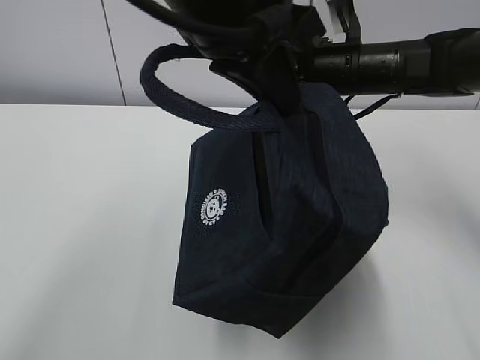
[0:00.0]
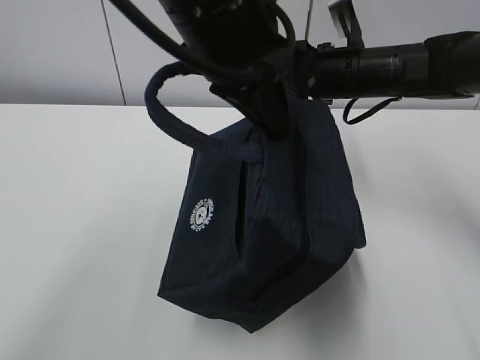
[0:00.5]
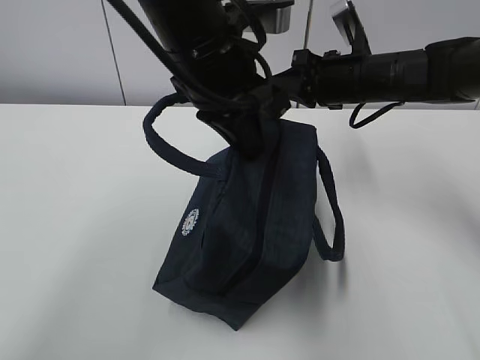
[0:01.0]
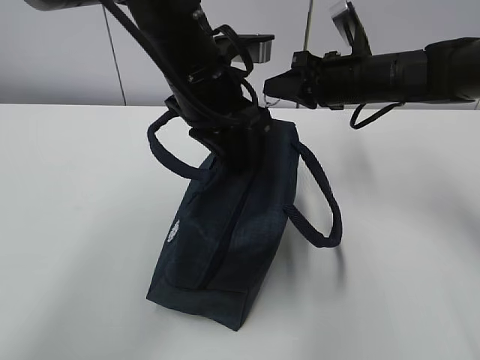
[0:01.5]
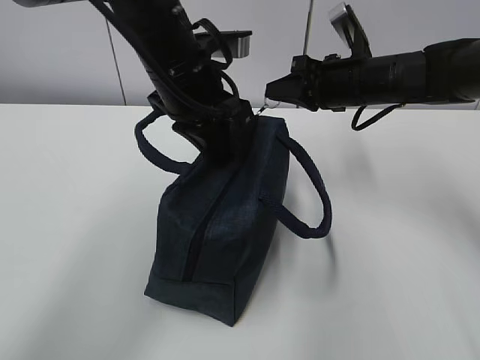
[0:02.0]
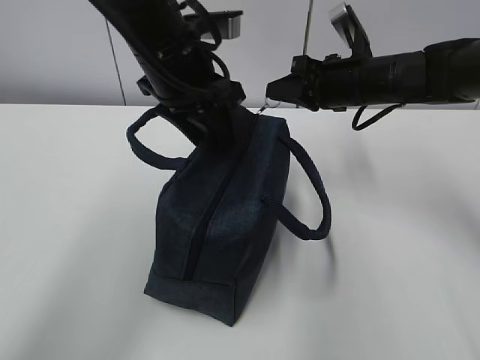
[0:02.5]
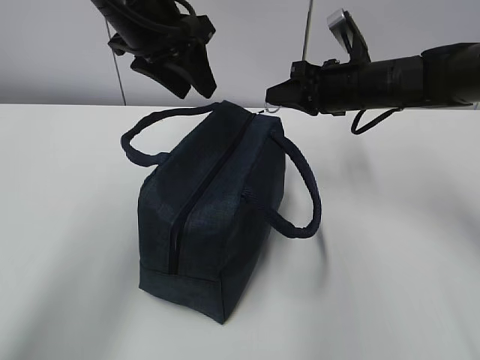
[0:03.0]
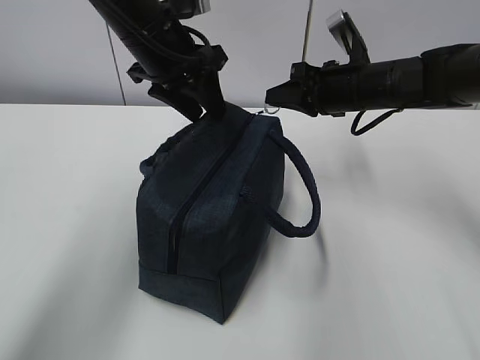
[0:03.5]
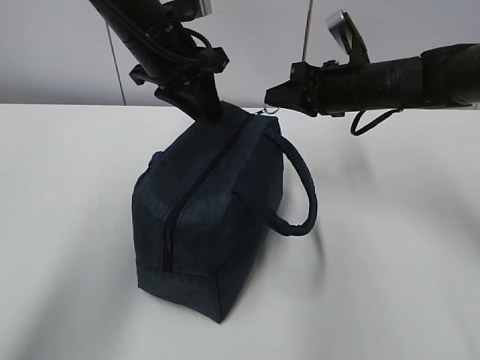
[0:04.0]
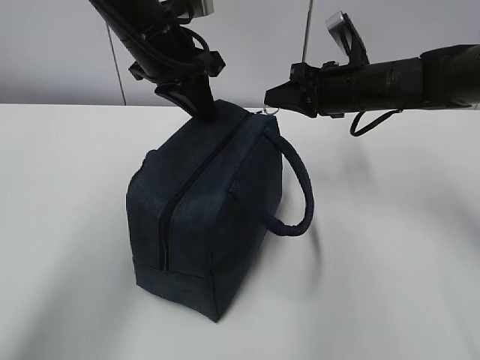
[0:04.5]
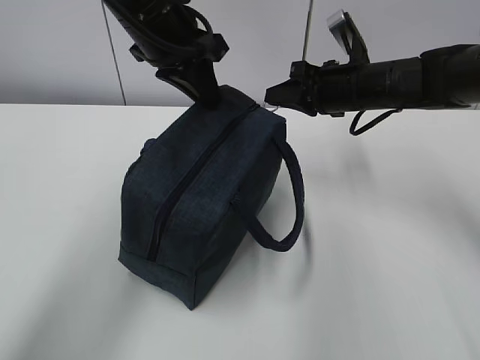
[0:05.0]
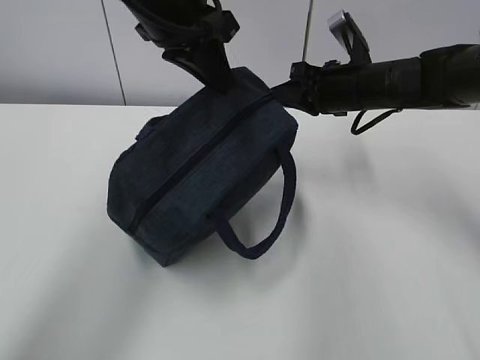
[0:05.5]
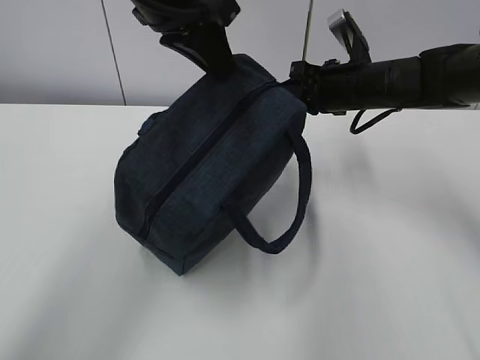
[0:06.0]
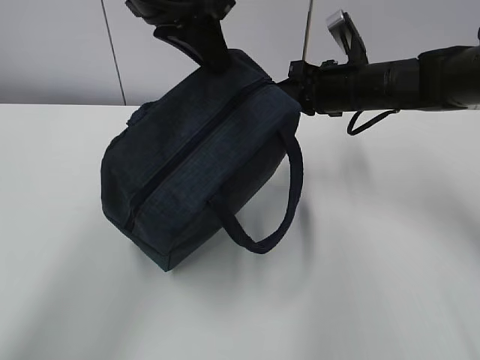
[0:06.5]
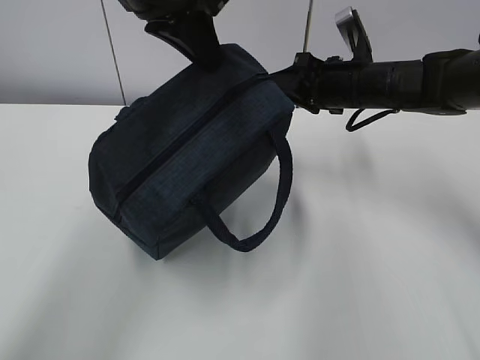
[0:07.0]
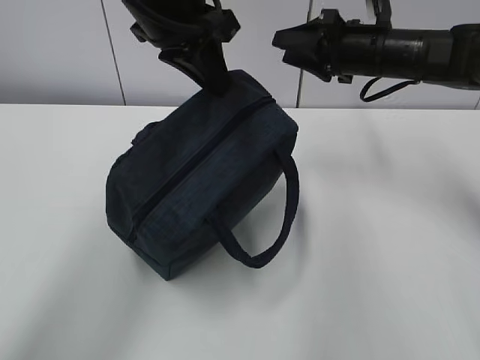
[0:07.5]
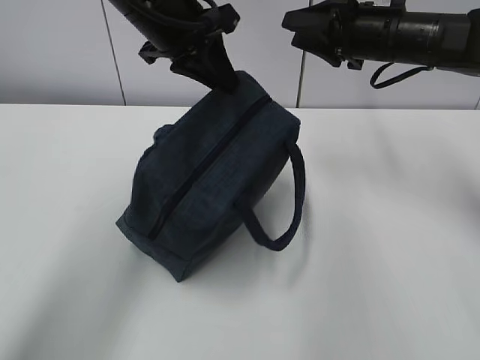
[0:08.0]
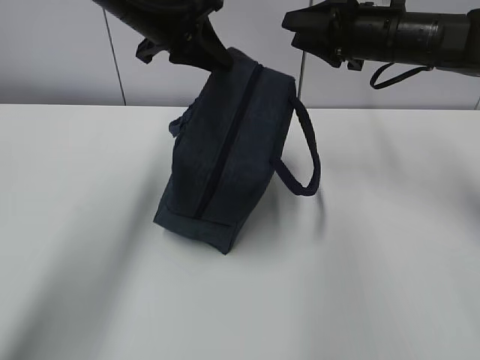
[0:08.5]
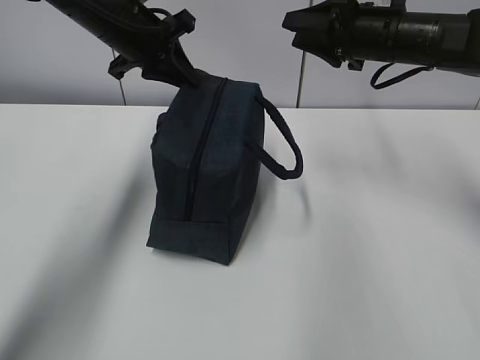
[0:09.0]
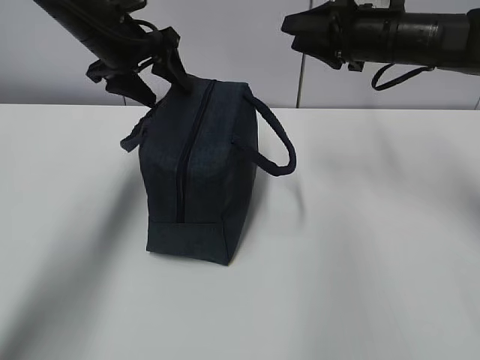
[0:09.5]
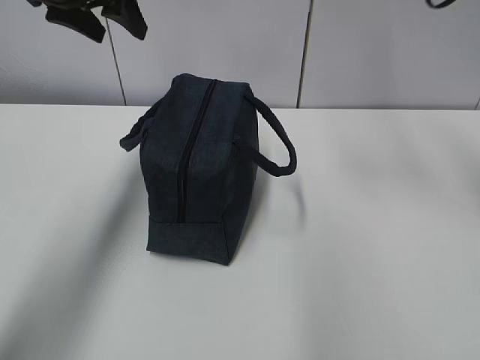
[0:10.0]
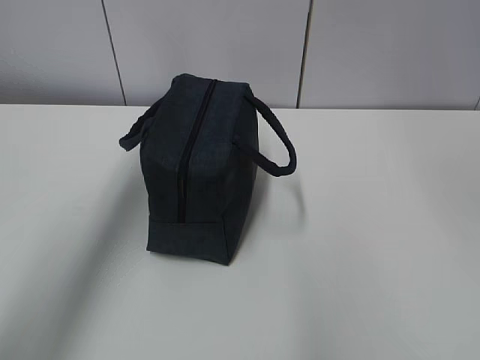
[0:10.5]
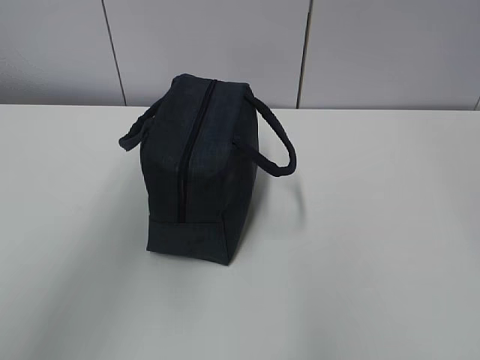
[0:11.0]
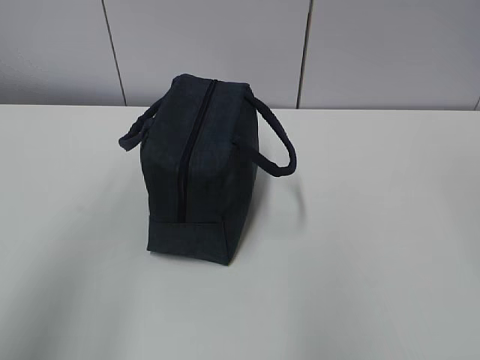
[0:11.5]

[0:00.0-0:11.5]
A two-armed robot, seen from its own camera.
0:00.0 to 0:02.0: The left gripper moves downward and forward, approximately 15 cm.
0:02.0 to 0:04.0: The left gripper moves forward, approximately 5 cm.
0:04.0 to 0:06.0: The left gripper travels upward and backward by approximately 10 cm.
0:06.0 to 0:07.5: The right gripper opens up.
0:07.5 to 0:09.5: The left gripper shifts approximately 15 cm forward, to the left and downward, and opens its fingers.
0:09.5 to 0:11.5: The grippers both shift backward and upward by approximately 40 cm.

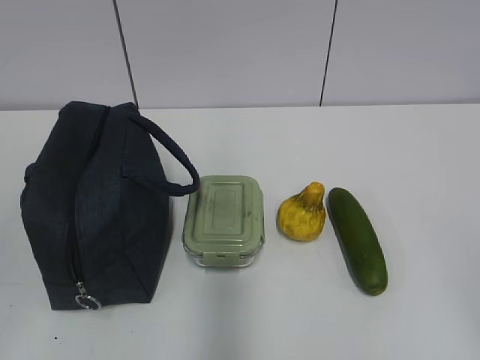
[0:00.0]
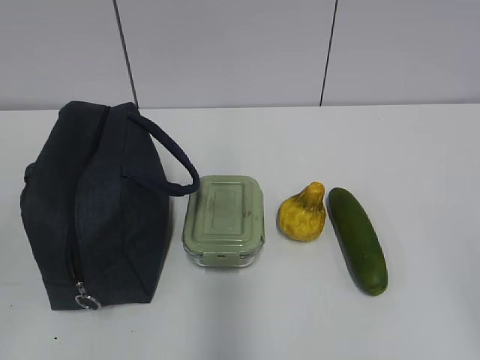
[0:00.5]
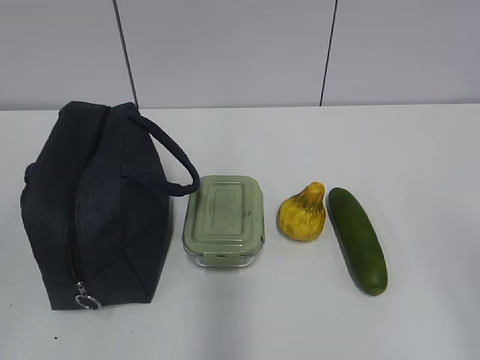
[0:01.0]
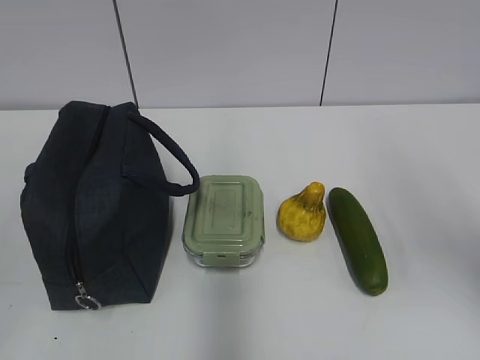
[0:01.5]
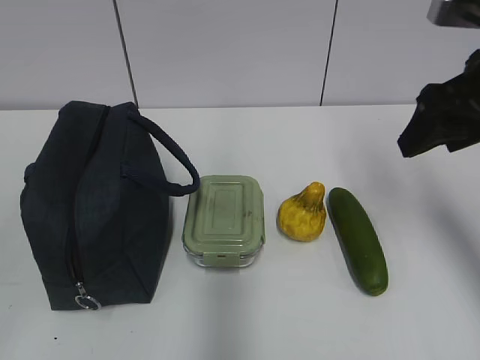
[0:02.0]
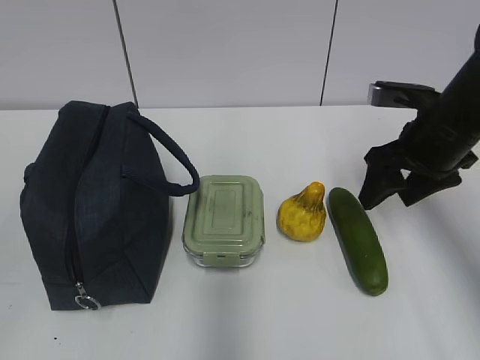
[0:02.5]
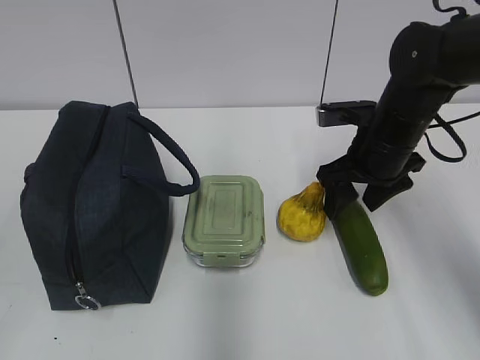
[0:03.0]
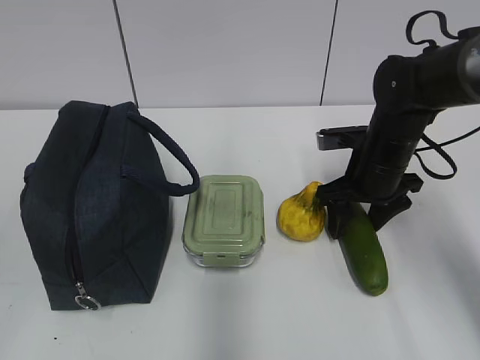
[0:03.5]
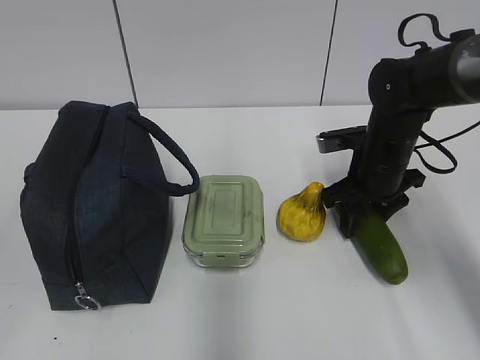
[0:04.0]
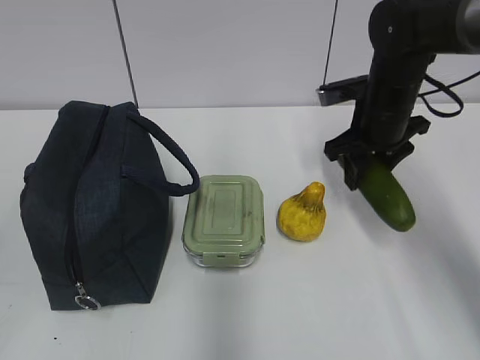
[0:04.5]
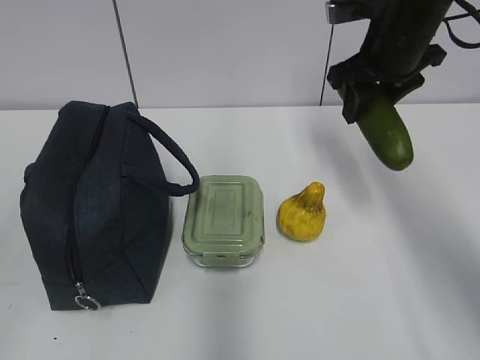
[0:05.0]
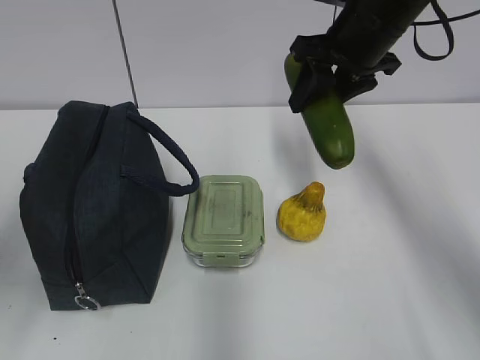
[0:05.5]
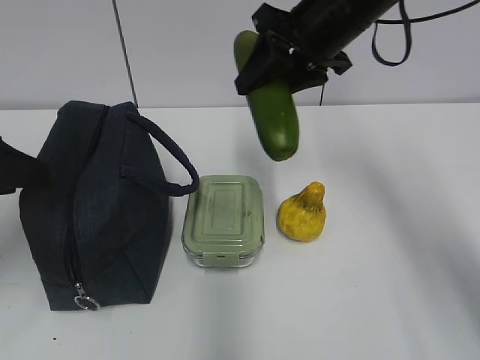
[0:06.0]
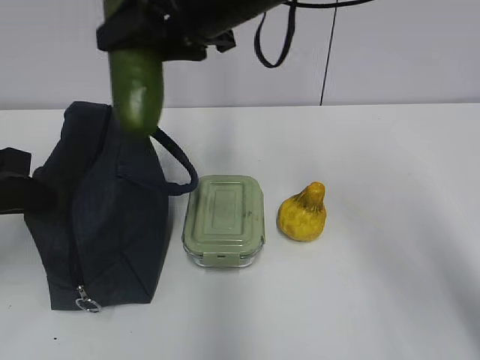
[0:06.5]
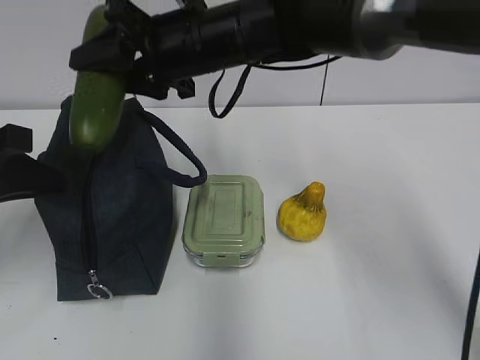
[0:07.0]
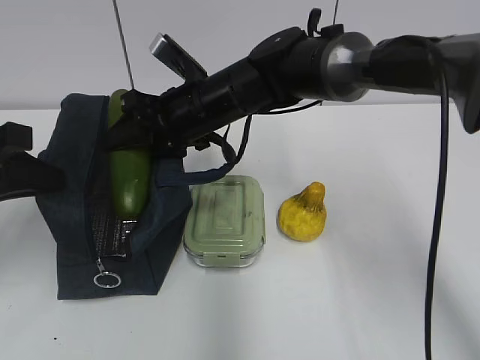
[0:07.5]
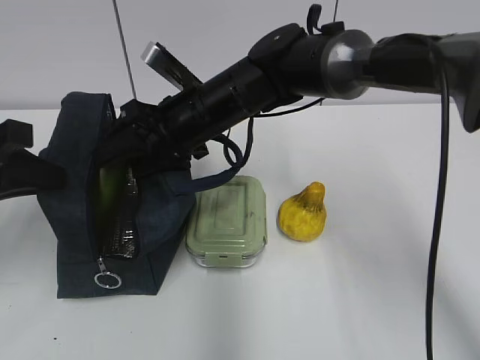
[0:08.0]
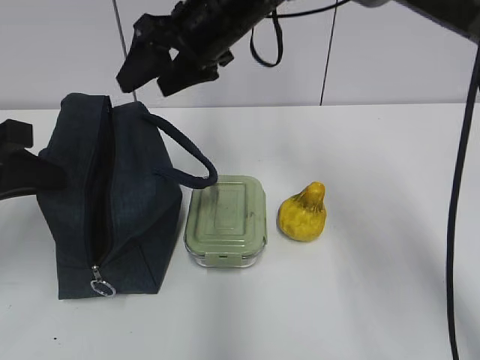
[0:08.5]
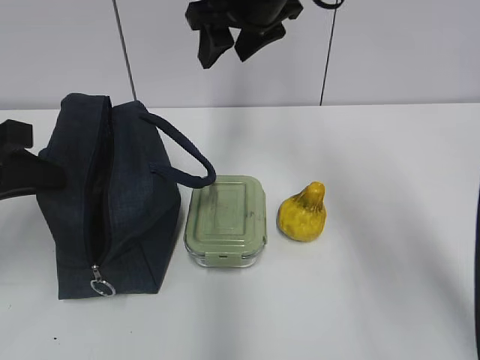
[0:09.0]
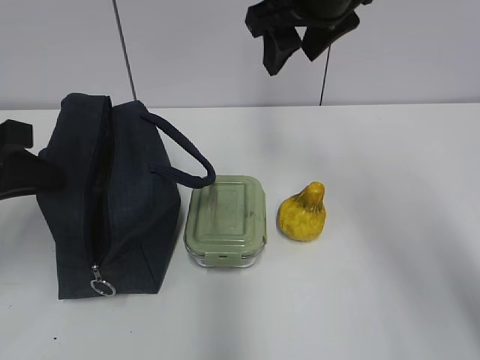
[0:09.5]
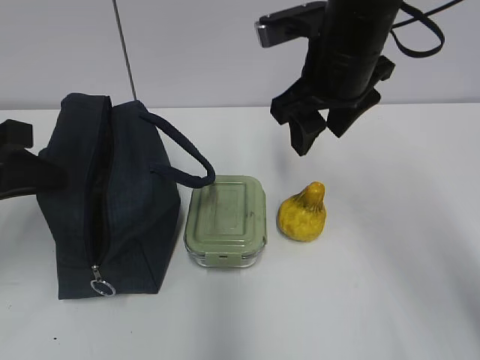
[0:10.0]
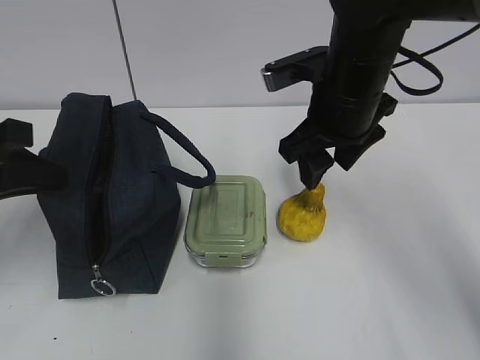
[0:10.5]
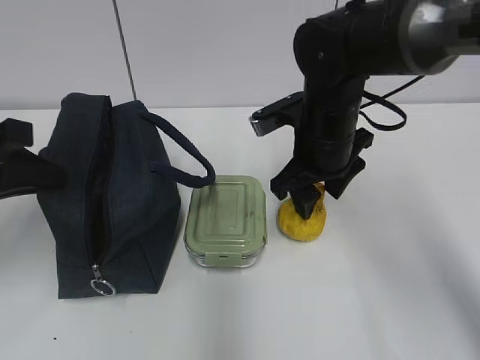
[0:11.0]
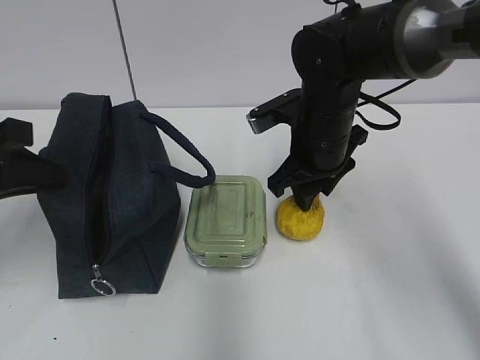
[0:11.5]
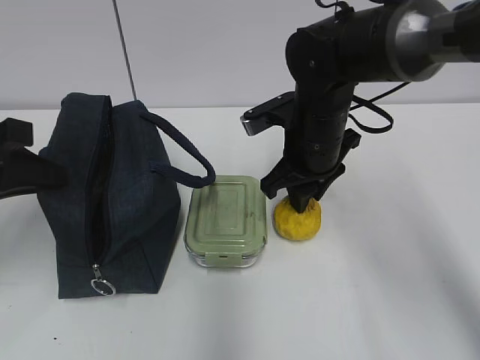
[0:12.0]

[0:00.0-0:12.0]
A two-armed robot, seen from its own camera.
Step, 0:00.0 to 0:03.5: Grab the cucumber with your right hand.
Step, 0:04.0 to 0:07.0: Grab the lunch bag with your left hand.
Step, 0:08.0 to 0:08.5: Place it into the bag with your right hand.
Step, 0:09.0 to 0:12.0: Grab the pear with your right hand.
0:02.0 to 0:04.0: The right gripper shifts about 20 cm downward and forward.
0:04.0 to 0:06.0: The left gripper goes roughly 20 cm forward. Meanwhile the right gripper heads upward and to the left, covering about 20 cm.
0:06.0 to 0:08.0: The left gripper closes up, while the right gripper is displaced to the left and downward by roughly 15 cm.
0:08.0 to 0:10.0: The right gripper goes some 15 cm to the right and upward.
0:10.0 to 0:12.0: The right gripper moves downward, some 10 cm, and closes.

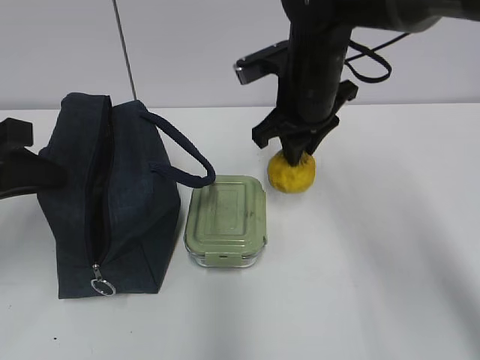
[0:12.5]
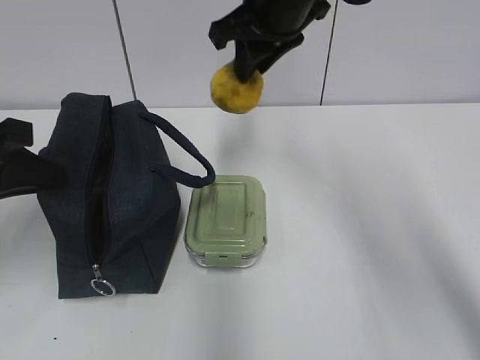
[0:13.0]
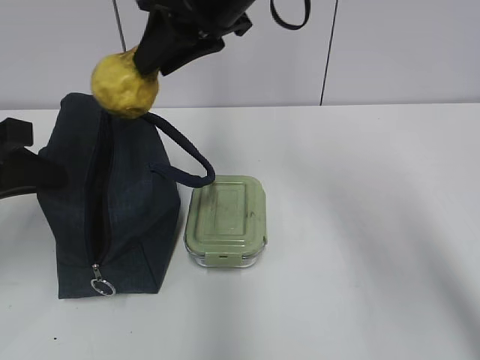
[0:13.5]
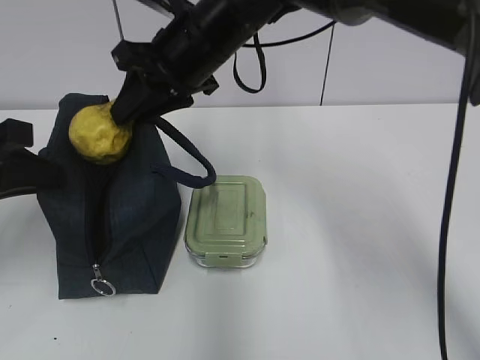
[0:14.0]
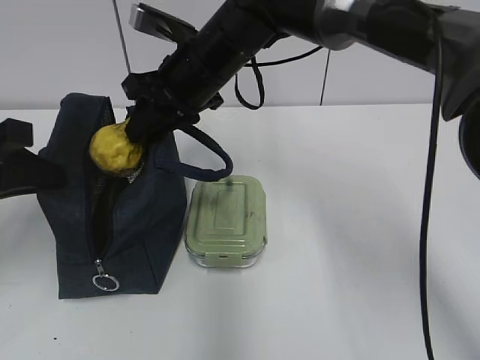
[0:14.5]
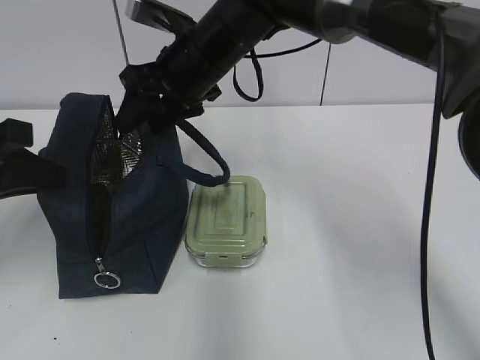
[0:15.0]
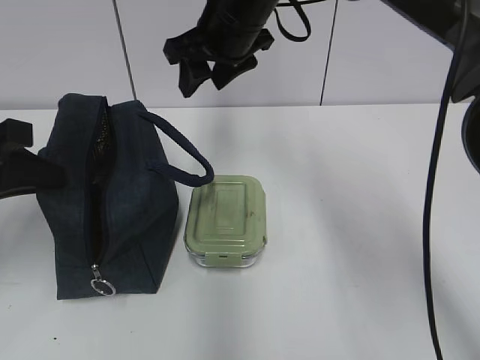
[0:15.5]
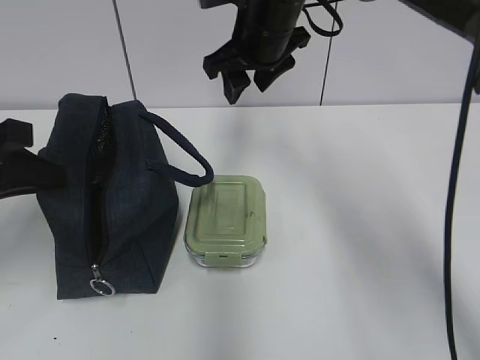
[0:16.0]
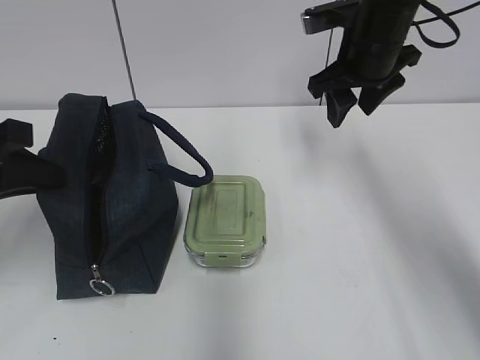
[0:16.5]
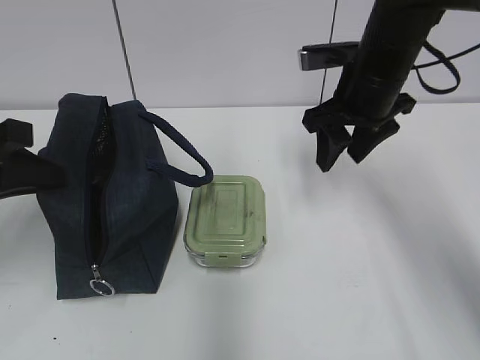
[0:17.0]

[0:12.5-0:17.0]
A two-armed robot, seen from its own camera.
Step, 0:12.5 to 0:15.0: Place it into the bag with your right hand.
0:12.5 to 0:14.5: The right gripper travels to the left by some 10 cm.
0:14.5 to 0:17.0: The right gripper shifts about 15 cm to the right, and opens.
